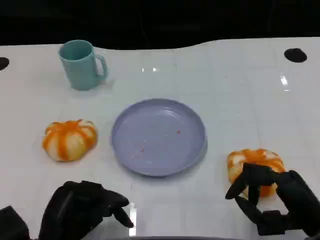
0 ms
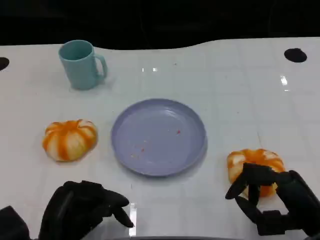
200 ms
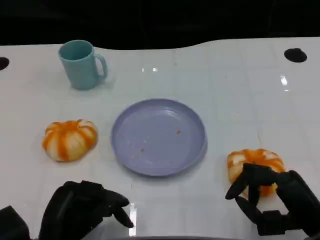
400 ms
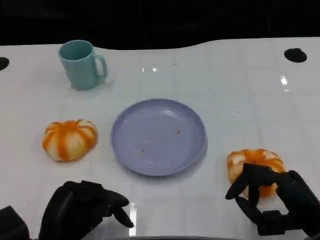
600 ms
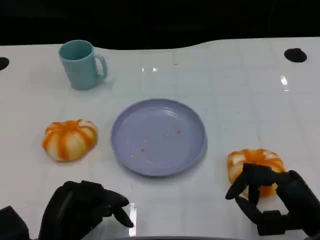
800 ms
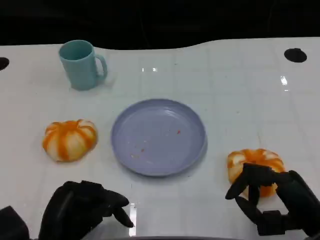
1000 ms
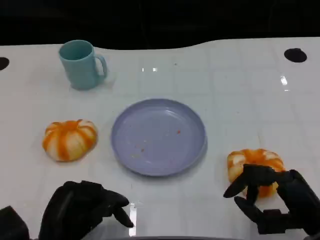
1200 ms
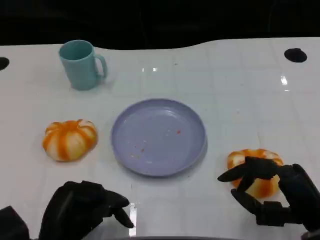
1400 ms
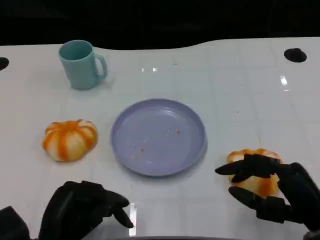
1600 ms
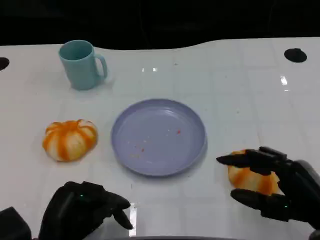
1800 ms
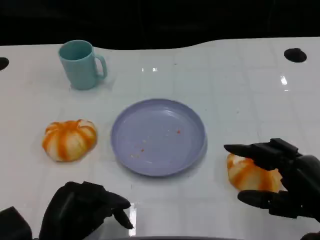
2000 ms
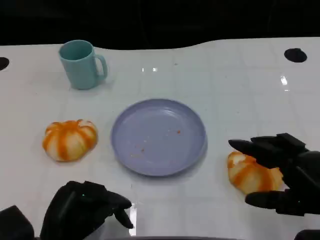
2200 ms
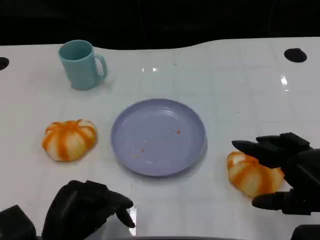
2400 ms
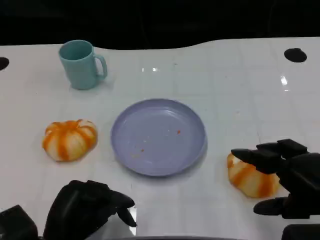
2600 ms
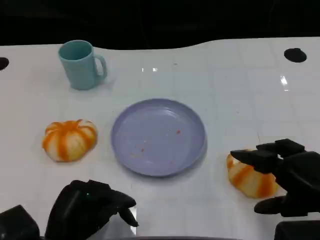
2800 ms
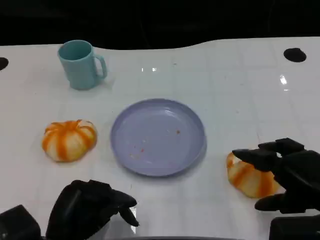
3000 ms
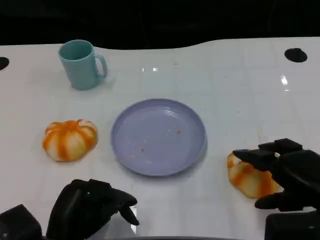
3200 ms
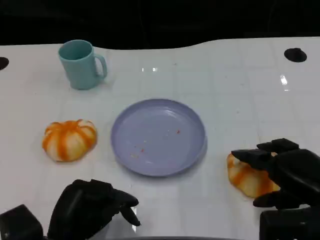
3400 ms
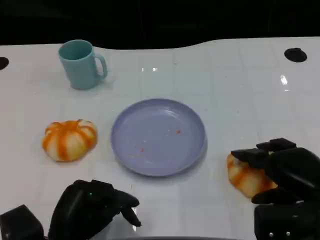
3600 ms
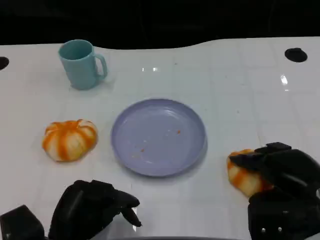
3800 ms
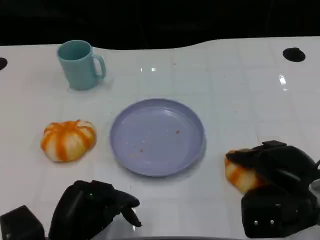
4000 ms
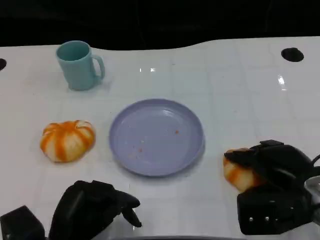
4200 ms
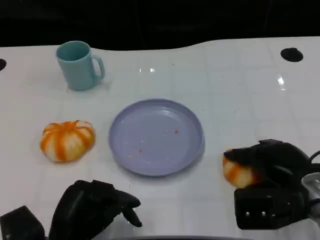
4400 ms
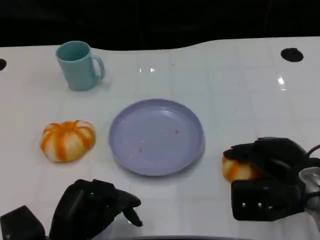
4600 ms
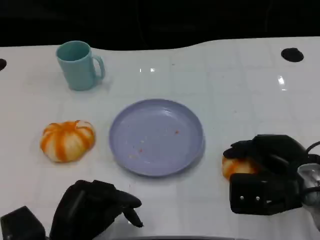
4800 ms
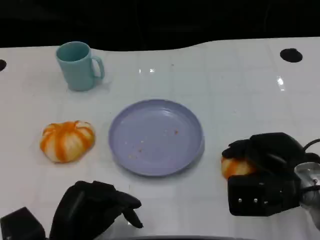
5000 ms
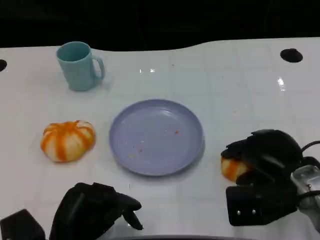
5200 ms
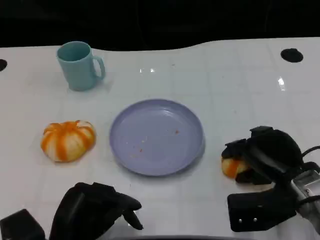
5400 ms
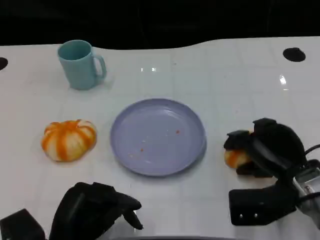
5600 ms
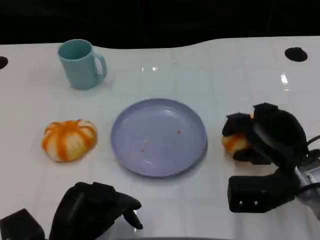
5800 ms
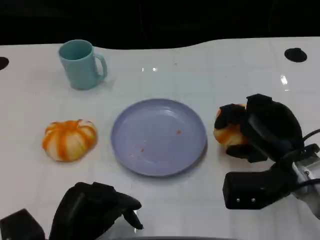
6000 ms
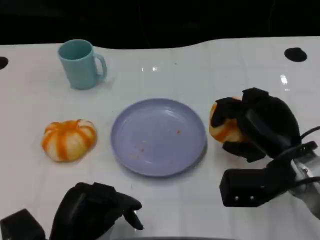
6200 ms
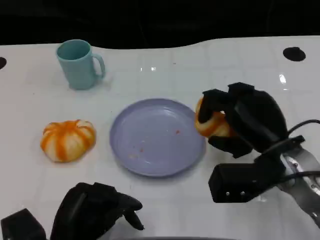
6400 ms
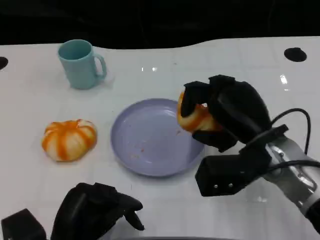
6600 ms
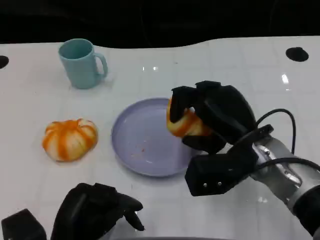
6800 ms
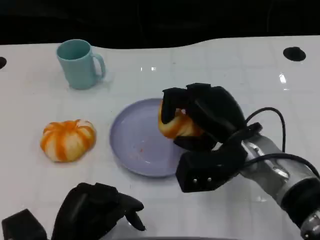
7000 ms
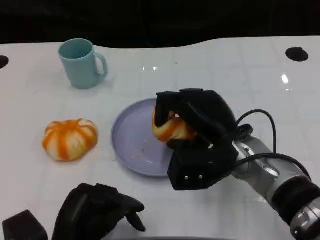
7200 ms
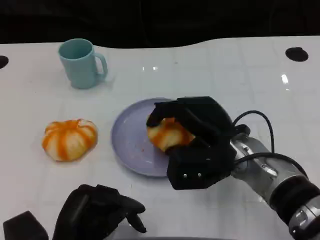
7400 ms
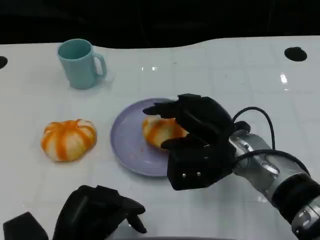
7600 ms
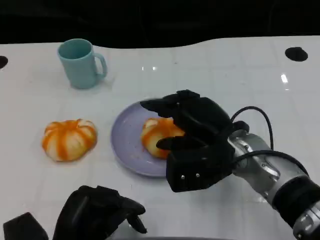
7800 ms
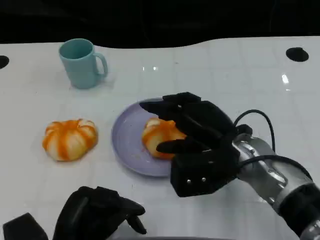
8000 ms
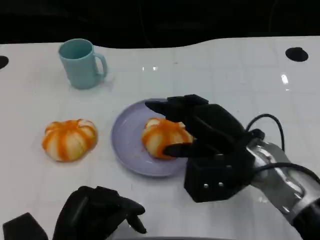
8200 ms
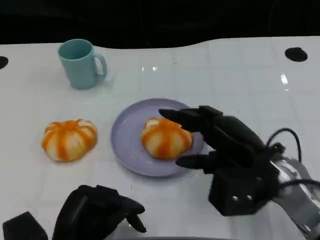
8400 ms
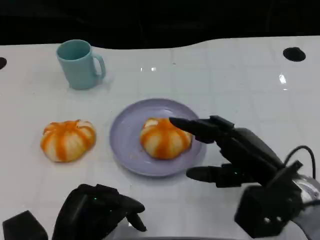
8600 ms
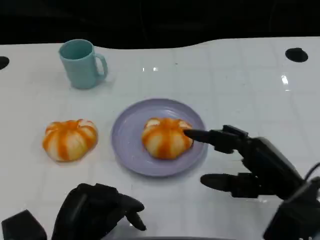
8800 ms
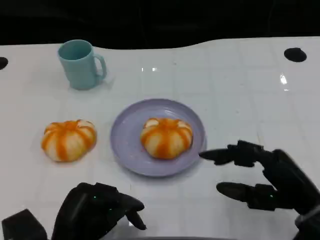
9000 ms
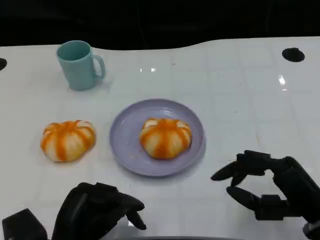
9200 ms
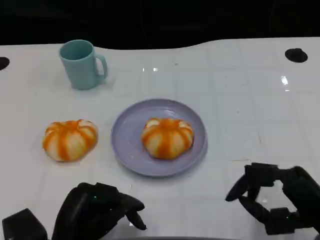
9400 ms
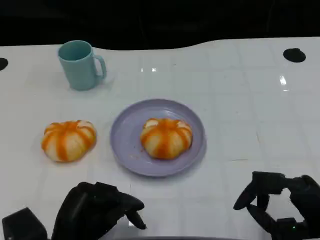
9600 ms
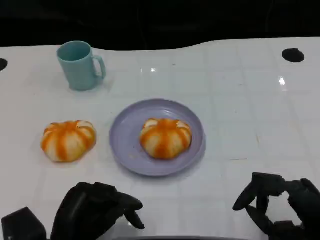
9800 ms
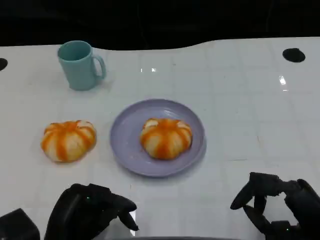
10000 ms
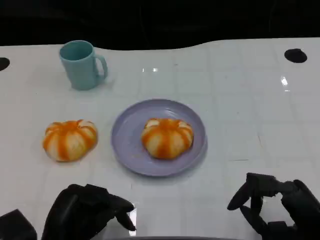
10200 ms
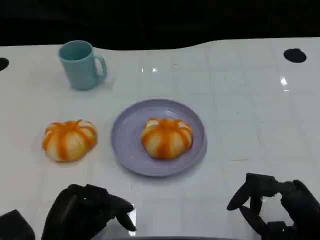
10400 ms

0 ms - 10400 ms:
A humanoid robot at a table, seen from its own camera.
Task of the whole recording: Grasp the bread from the table and place it into the plate.
0 ms - 1400 ms: Both hands stay put.
3000 ms - 4400 ms: The right hand moves roughly 5 cm.
6000 ms - 7400 ms: The right hand shifts roughly 10 cm to the left.
7400 ms - 9000 ms: The right hand travels to the right and backward by about 15 cm.
9000 ms - 10400 ms: There are only small adjustments of the hands.

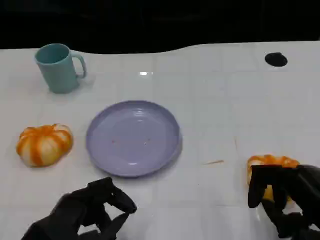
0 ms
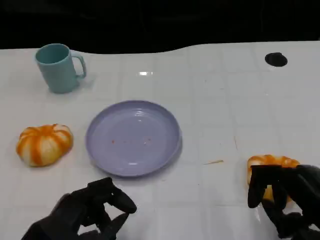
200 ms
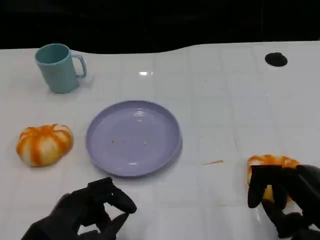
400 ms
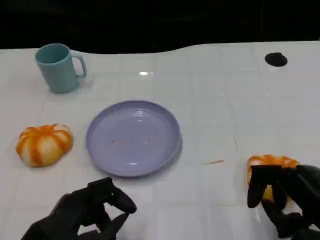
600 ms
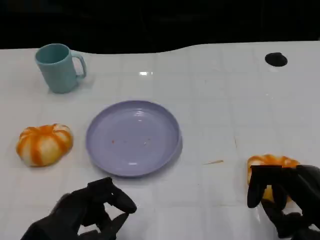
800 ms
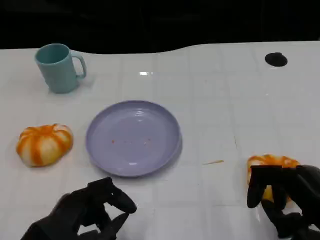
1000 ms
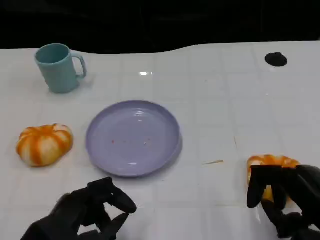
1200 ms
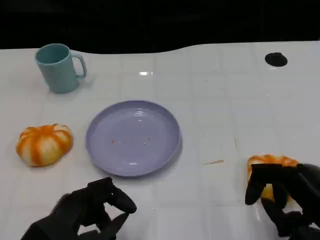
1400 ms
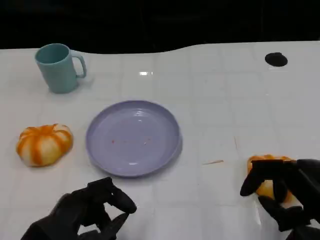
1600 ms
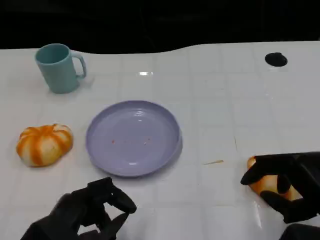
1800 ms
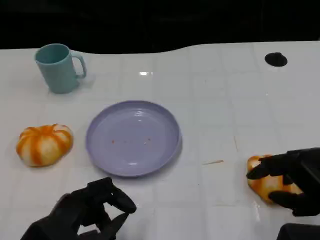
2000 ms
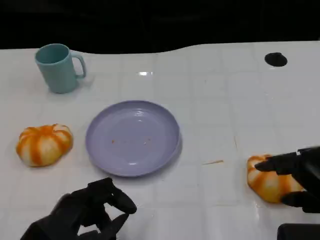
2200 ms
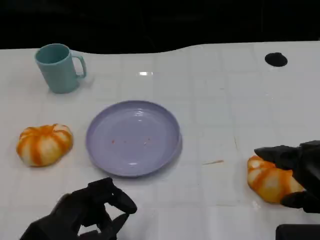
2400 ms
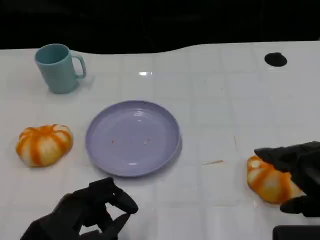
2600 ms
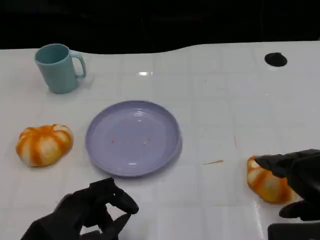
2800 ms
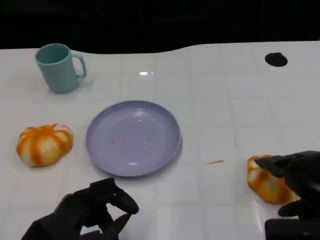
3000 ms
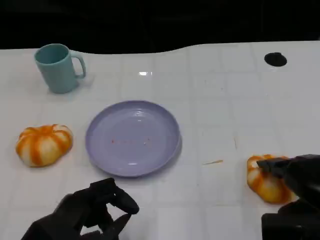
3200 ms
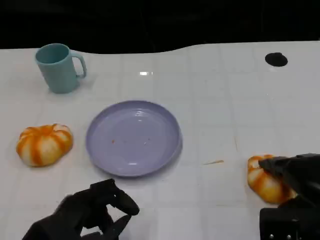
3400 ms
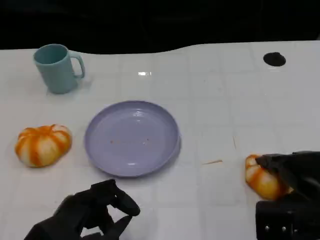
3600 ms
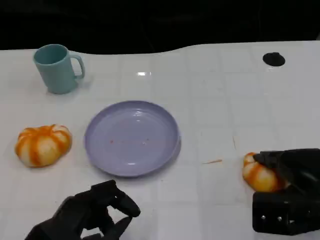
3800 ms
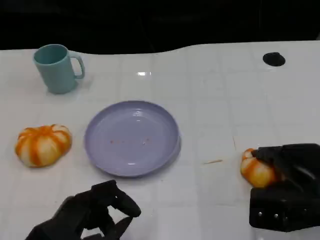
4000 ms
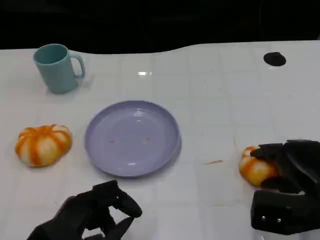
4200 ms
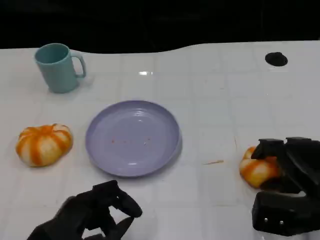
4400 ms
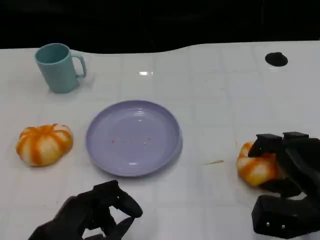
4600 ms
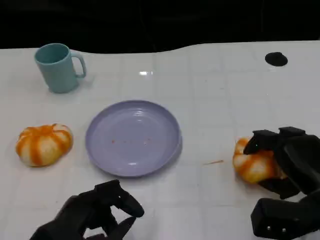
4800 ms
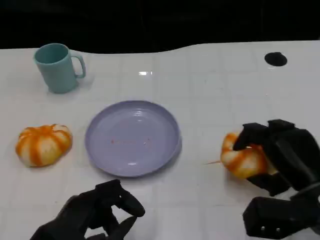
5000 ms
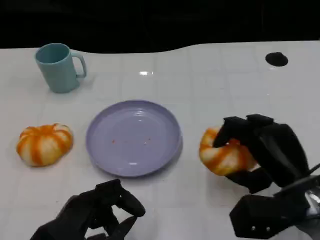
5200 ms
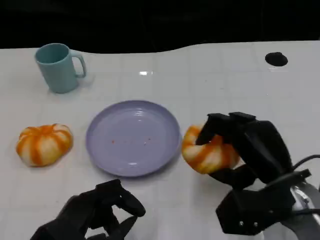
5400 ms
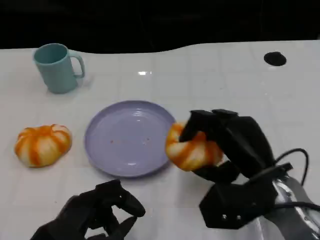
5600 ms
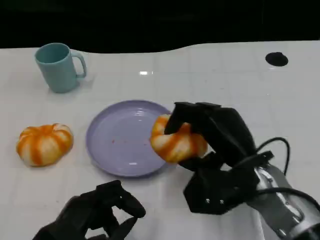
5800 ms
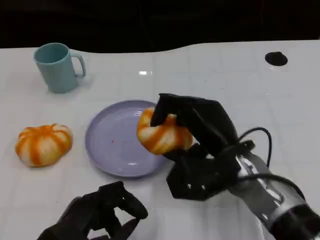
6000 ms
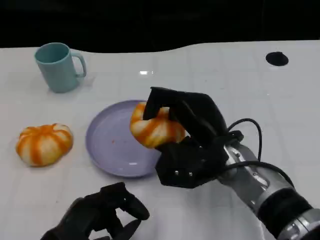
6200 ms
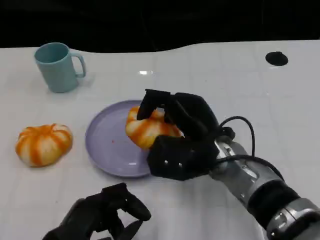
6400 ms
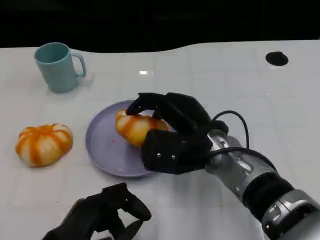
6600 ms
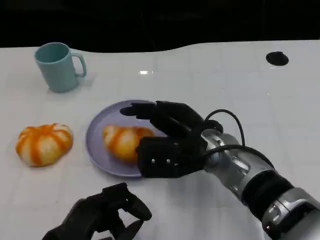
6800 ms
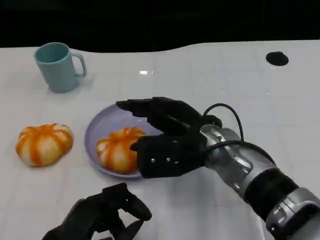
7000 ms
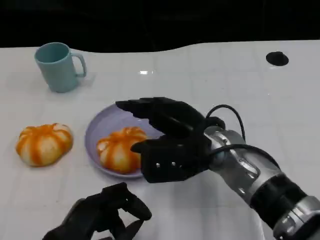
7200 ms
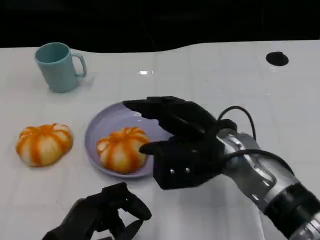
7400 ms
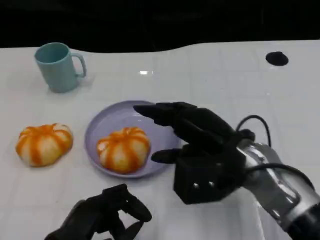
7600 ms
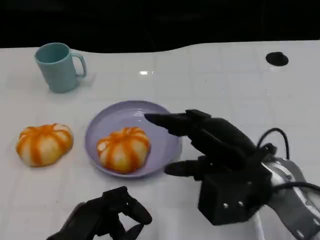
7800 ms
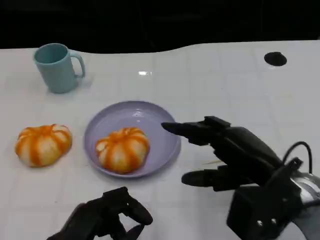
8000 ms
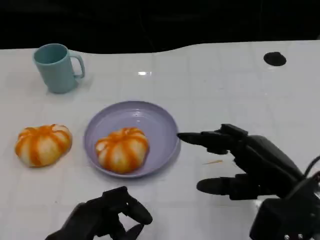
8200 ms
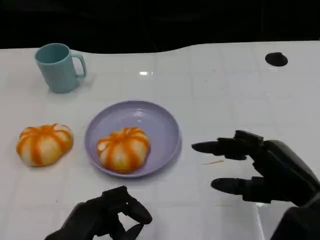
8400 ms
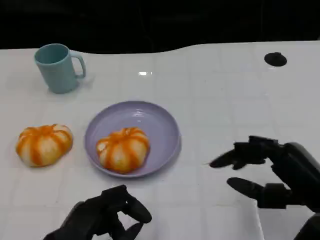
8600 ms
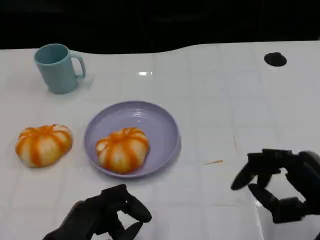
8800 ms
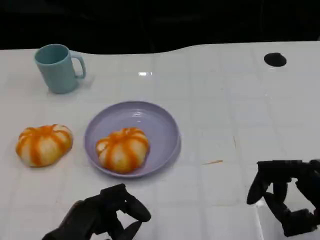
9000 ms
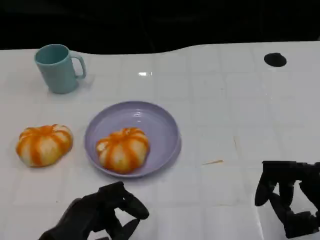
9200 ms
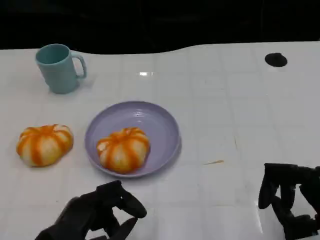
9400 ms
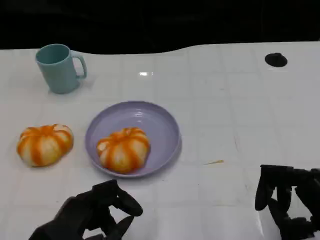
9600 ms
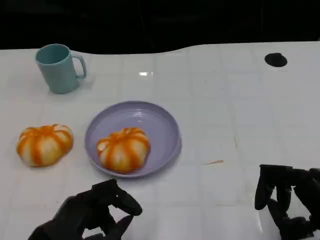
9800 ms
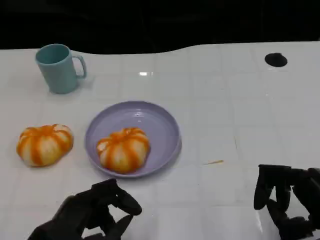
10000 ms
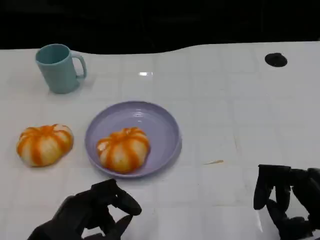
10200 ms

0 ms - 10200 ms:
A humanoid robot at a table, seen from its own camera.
Task of the whole recording: Grasp the bread from the table and place it into the plate.
0 ms - 1400 ms: Both hands stay about where they are.
3000 ms - 4400 ms: The right hand moves downward, some 5 cm.
4400 ms - 5800 ms: The right hand moves to the left, approximately 10 cm.
5800 ms - 7200 ms: The right hand changes place by some 5 cm.
7200 ms - 8800 ms: The right hand heads to the right and backward, covering about 20 cm.
8800 ms - 10200 ms: The hands make only small movements.

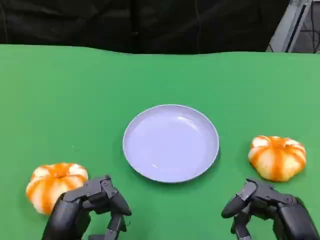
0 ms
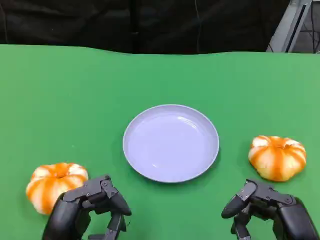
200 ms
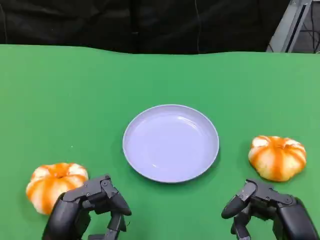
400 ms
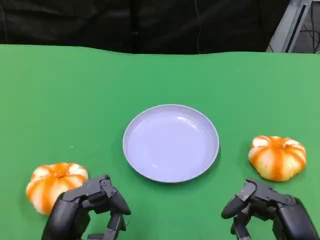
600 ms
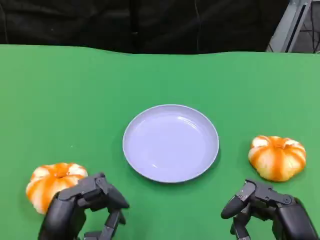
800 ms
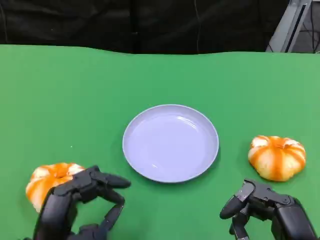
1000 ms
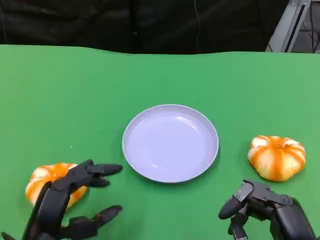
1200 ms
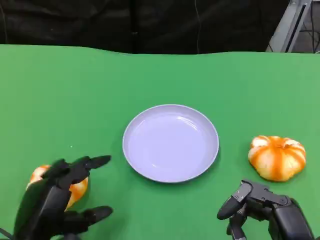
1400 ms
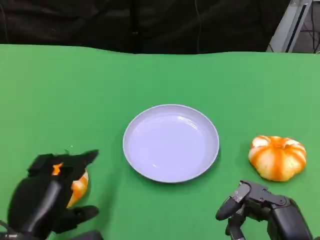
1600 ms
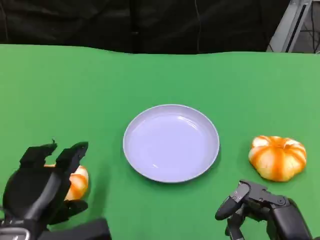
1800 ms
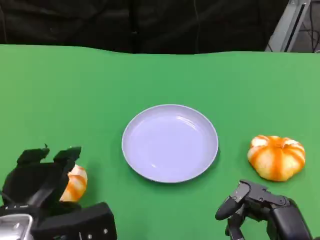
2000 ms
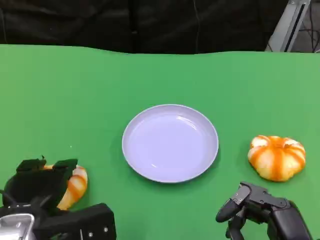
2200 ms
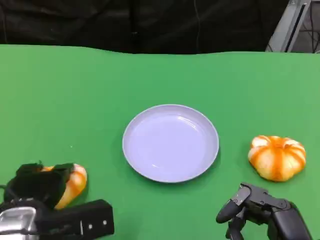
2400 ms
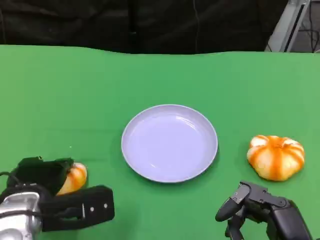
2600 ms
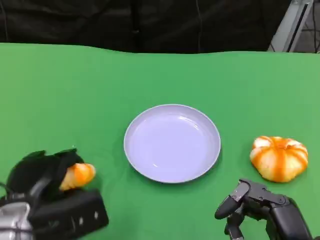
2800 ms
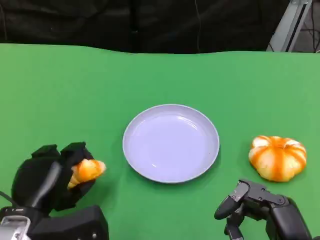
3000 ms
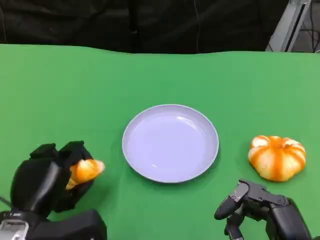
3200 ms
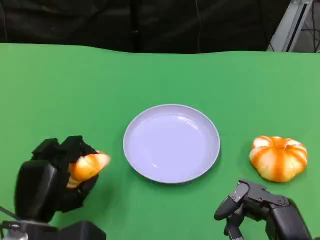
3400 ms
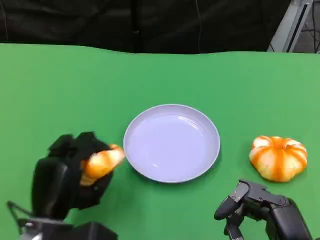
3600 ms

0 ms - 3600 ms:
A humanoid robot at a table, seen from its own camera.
Task of the whole recording: Grasp the bread from the table and place it into the plate.
0 ms - 1800 ms: The left hand ends up approximately 5 cm from where it was.
1800 ms - 3600 ms: The left hand shifts by about 5 cm.
